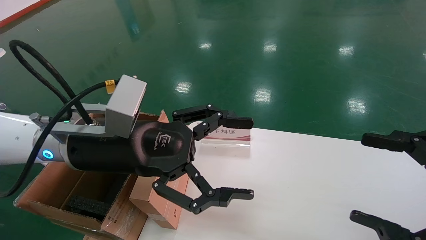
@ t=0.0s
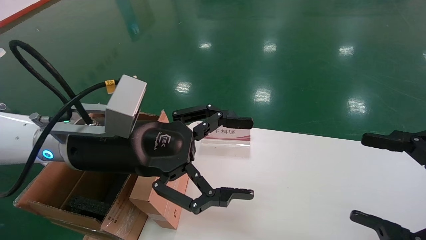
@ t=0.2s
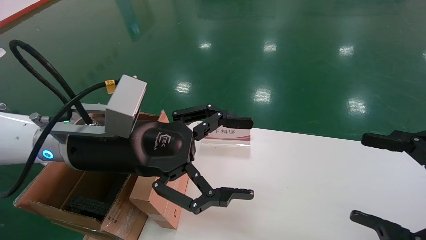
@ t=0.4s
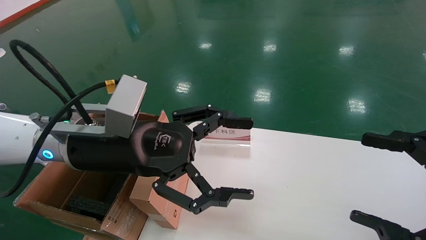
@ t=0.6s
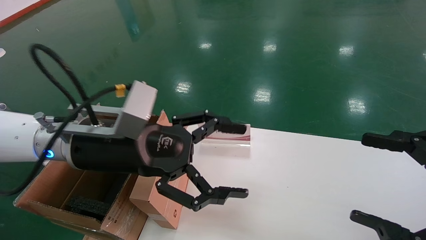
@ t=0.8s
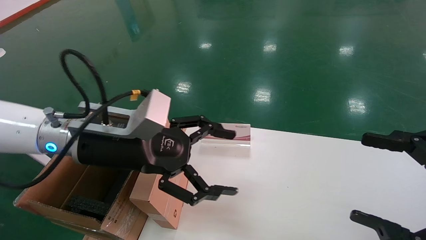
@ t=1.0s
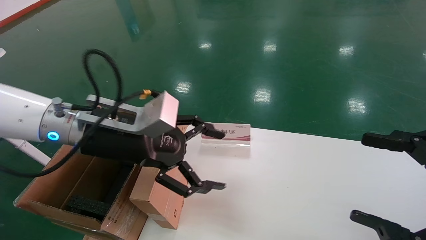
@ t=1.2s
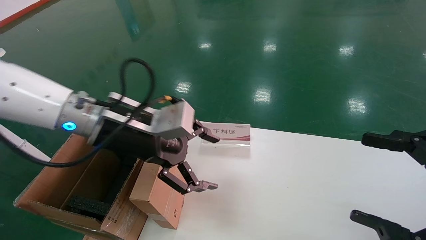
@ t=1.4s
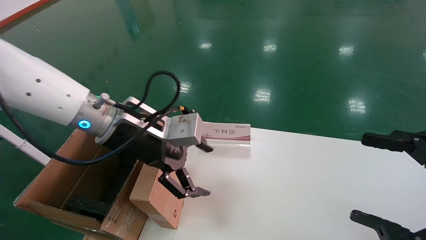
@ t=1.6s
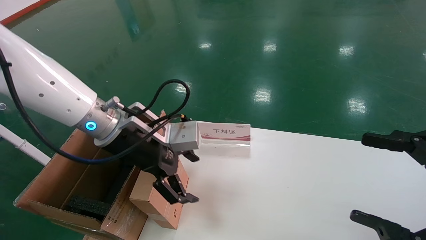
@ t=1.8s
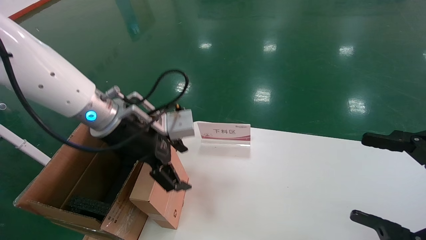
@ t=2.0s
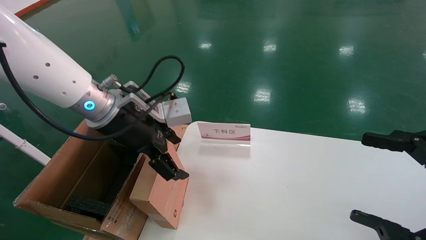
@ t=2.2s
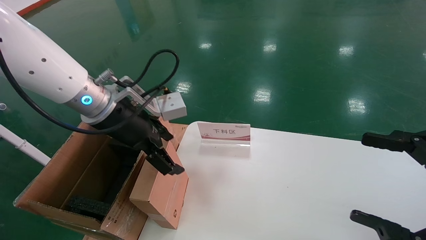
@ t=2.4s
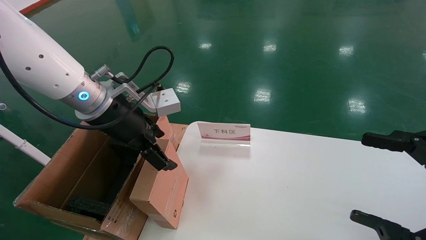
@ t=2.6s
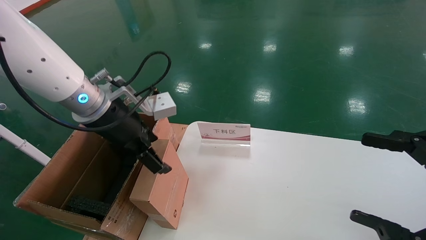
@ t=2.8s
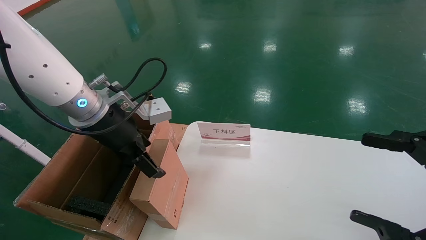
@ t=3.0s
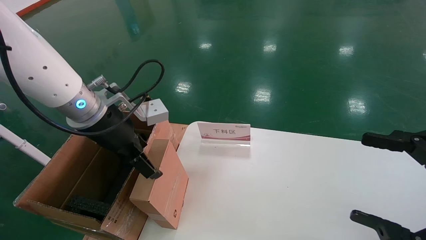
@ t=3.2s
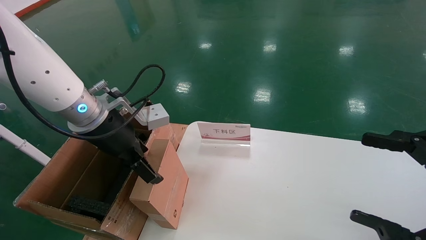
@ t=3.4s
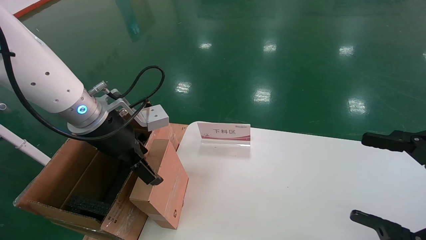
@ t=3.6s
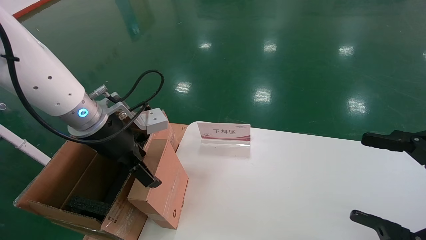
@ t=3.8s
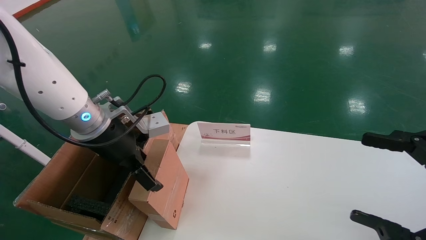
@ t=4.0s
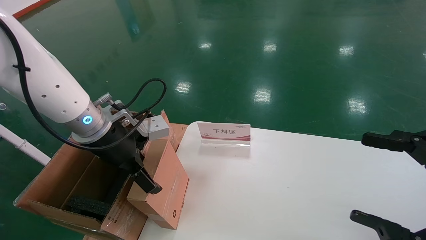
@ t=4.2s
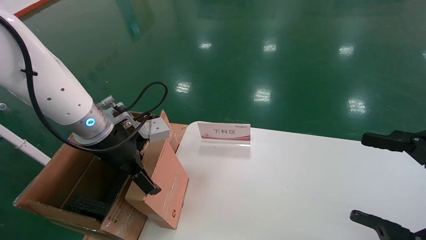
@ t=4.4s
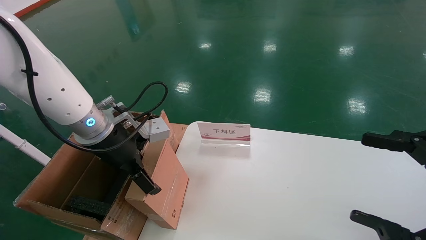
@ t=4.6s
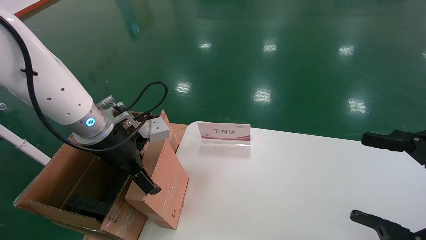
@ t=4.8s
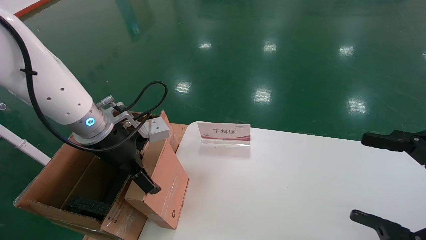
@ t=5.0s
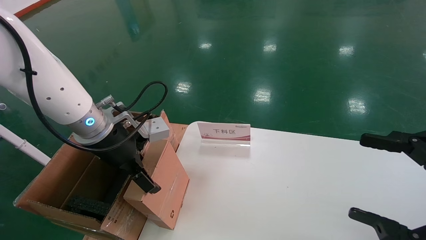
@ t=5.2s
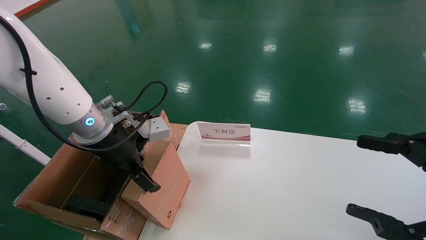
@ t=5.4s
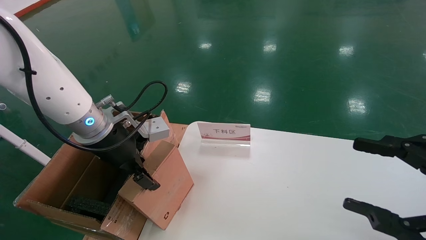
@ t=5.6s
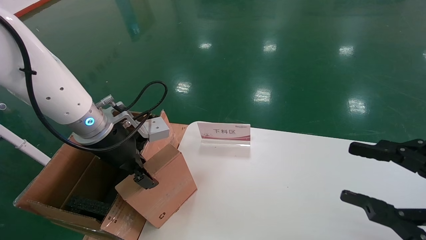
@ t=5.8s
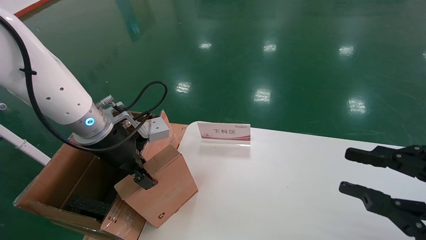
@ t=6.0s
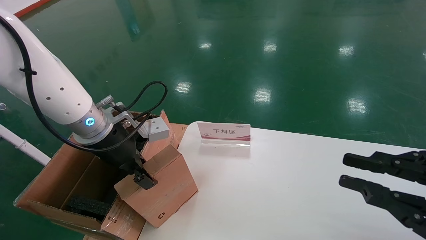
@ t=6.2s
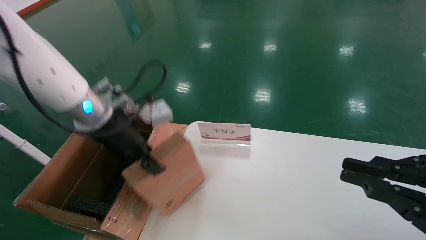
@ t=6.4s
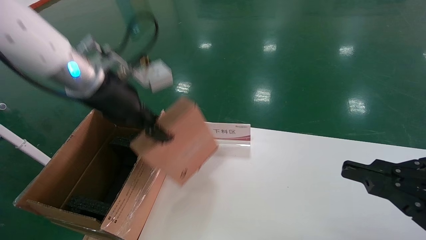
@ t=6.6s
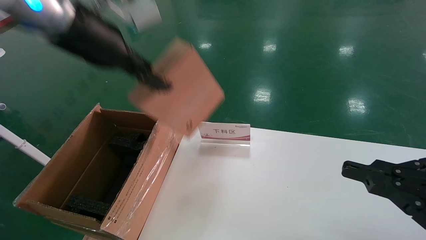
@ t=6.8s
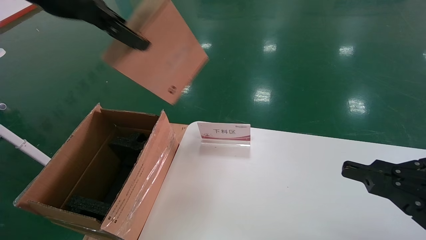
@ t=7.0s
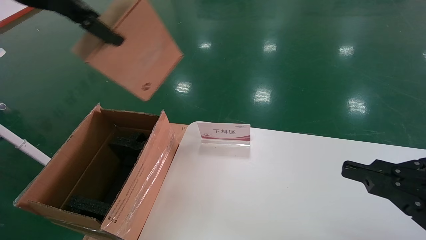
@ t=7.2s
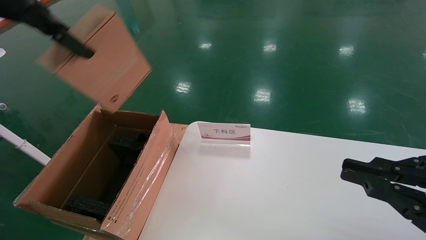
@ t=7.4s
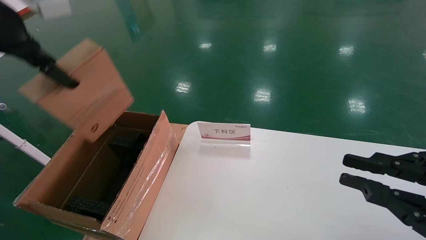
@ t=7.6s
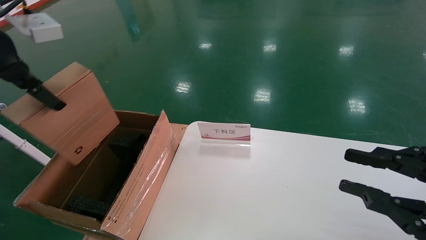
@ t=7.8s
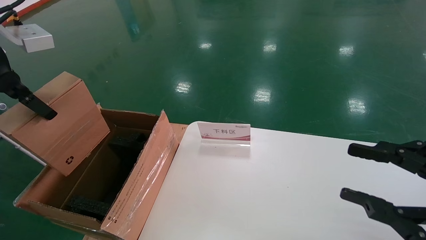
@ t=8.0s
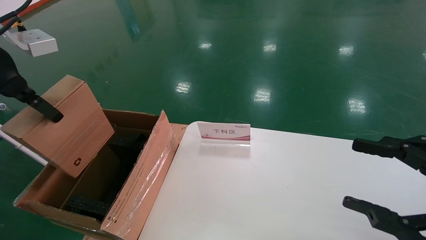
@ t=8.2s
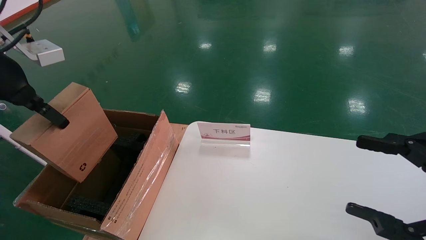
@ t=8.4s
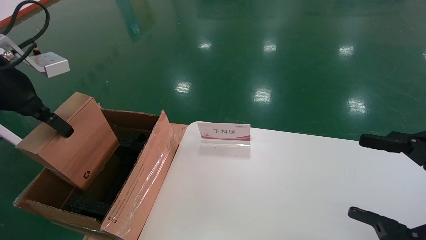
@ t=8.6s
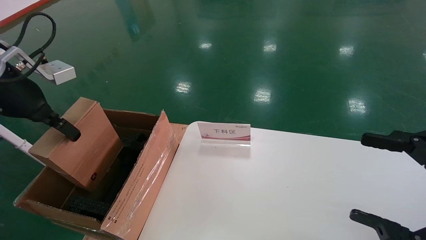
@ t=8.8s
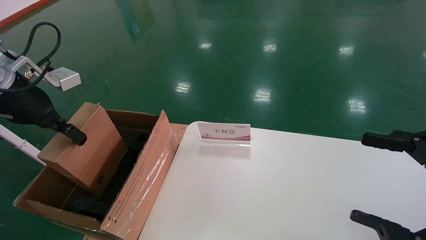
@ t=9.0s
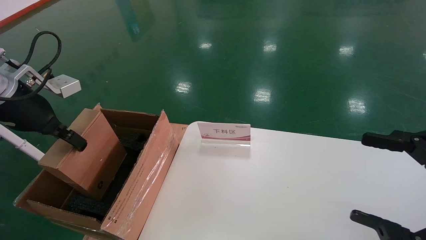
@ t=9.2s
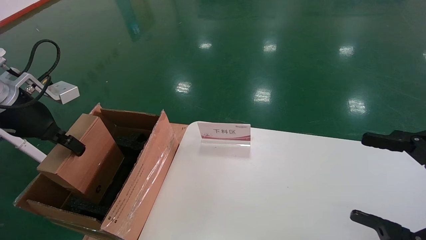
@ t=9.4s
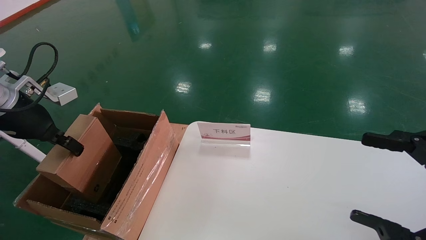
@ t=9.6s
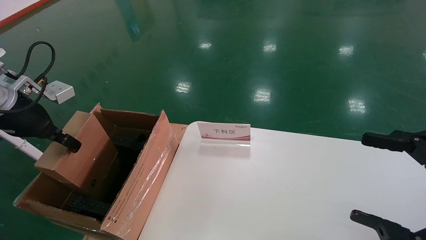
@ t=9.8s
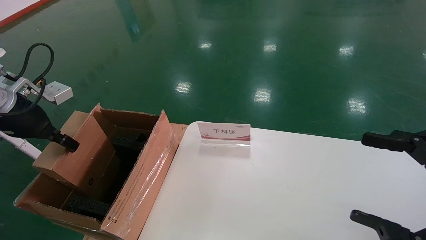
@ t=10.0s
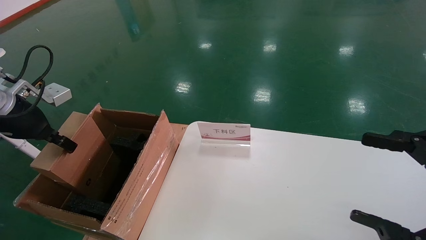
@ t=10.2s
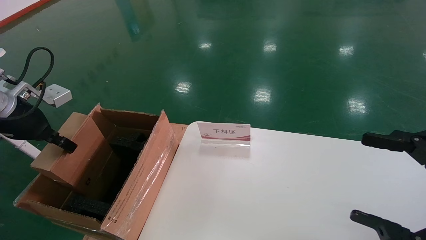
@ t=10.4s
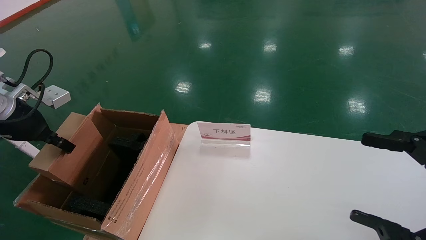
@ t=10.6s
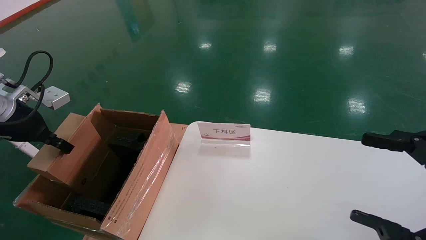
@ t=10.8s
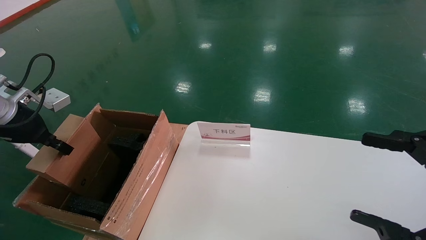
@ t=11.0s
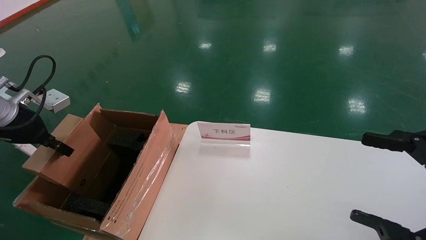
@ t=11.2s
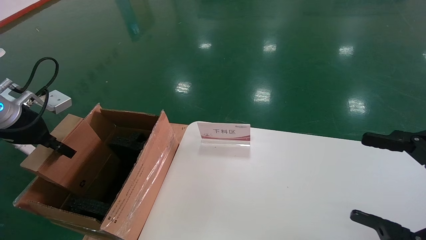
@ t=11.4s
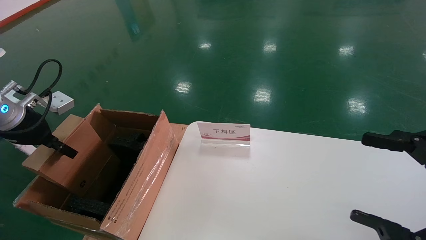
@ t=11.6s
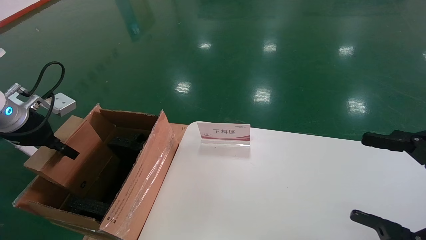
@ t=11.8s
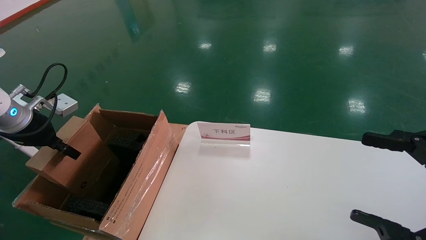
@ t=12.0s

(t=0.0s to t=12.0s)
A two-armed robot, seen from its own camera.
Task of the whole recording: pick up the small cardboard box and load it into the large cardboard box.
Step, t=1.0s - t=8.0s: Pick up the mouse and power cord box.
t=0.0s - t=1.6s: The left gripper goes some 5 cm forward.
t=3.0s - t=4.4s: There are only small adjustments of the grippers.
t=4.4s - t=6.0s: The left gripper closes. Meanwhile the right gripper closes up.
t=6.0s - t=7.6s: The right gripper closes up. Meanwhile the left gripper travels upward and to the left by some 25 cm.
t=7.6s - t=9.0s: The right gripper opens up. Meanwhile the left gripper is displaced downward by about 10 cm.
t=9.0s - t=10.4s: The left gripper moves about 5 cm.
t=10.4s - t=12.0s: The grippers stay close to where they were, moving slightly.

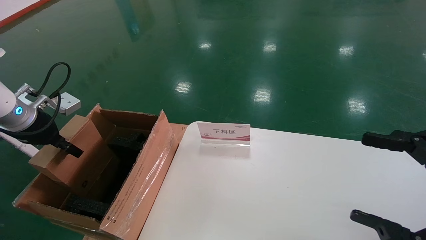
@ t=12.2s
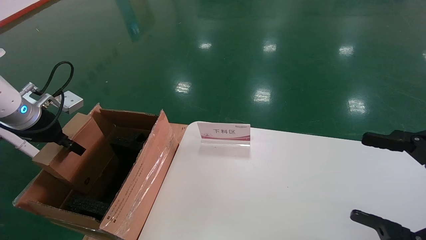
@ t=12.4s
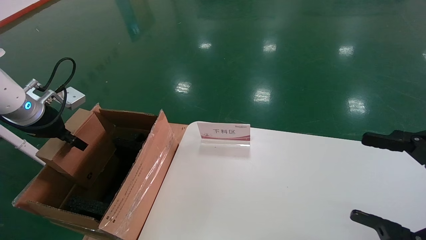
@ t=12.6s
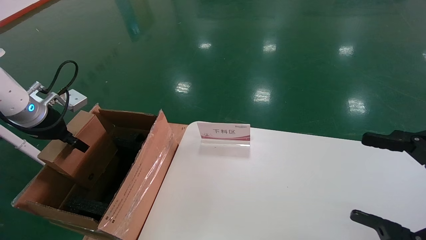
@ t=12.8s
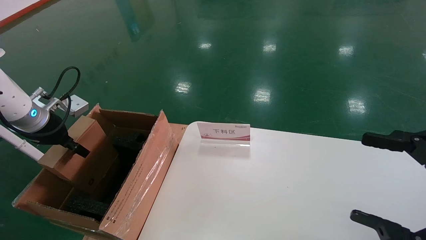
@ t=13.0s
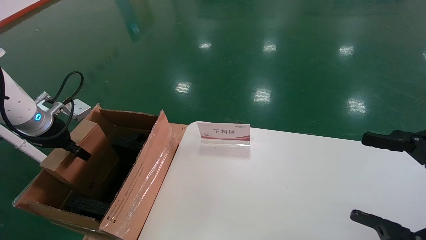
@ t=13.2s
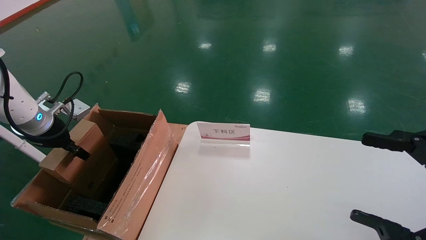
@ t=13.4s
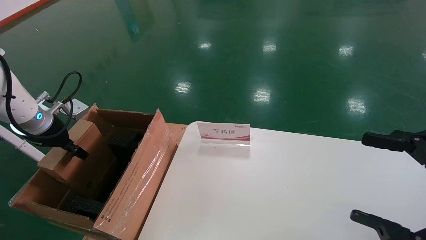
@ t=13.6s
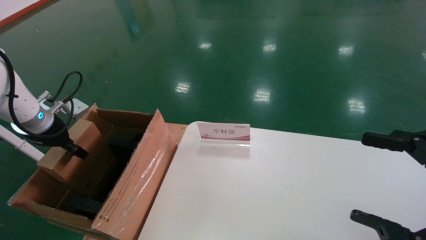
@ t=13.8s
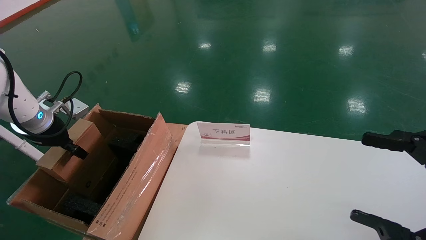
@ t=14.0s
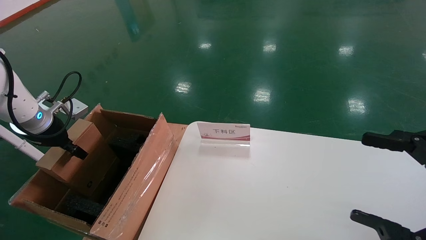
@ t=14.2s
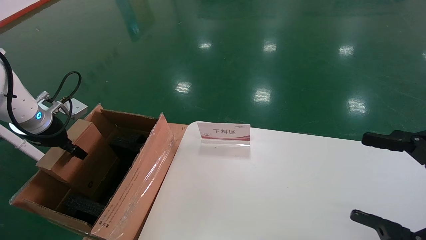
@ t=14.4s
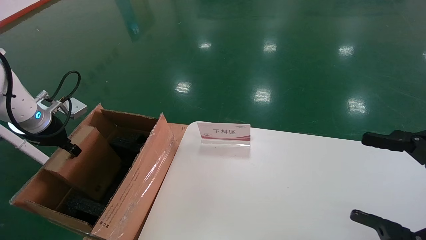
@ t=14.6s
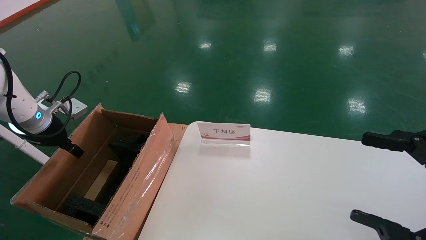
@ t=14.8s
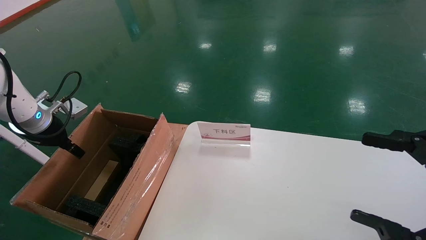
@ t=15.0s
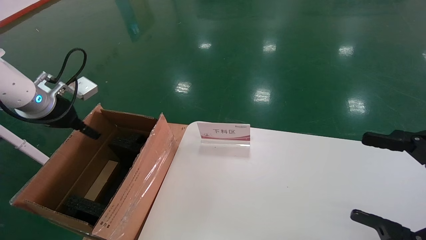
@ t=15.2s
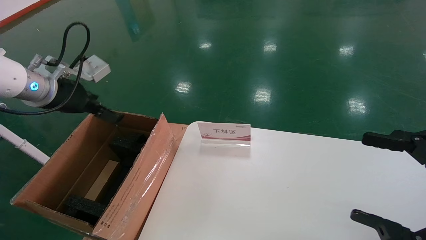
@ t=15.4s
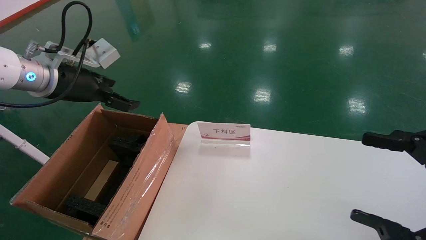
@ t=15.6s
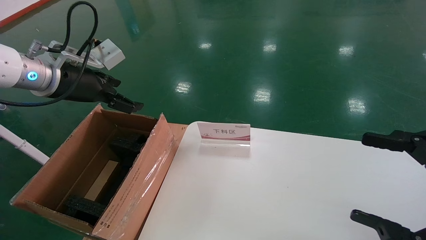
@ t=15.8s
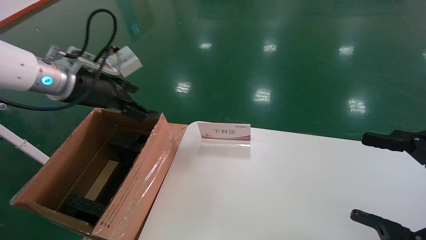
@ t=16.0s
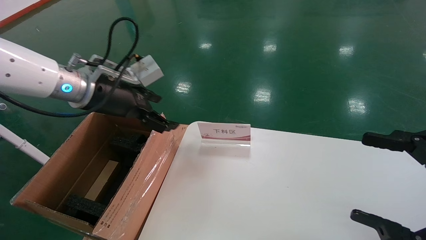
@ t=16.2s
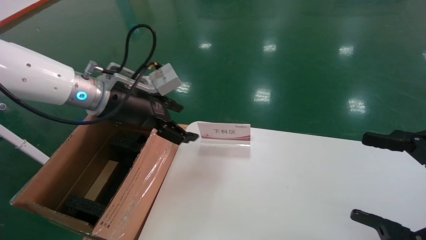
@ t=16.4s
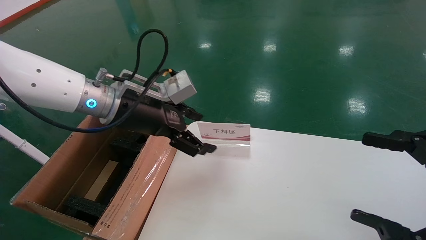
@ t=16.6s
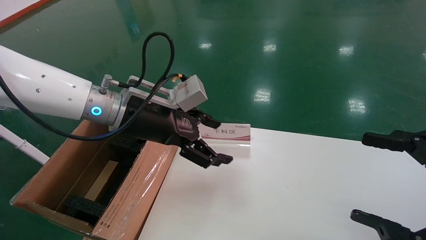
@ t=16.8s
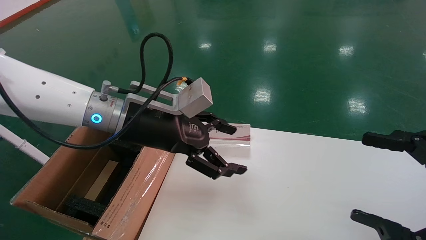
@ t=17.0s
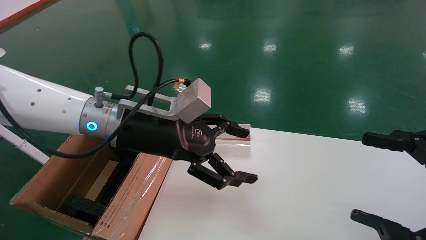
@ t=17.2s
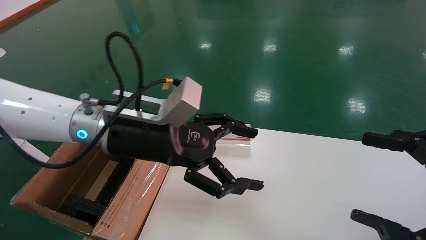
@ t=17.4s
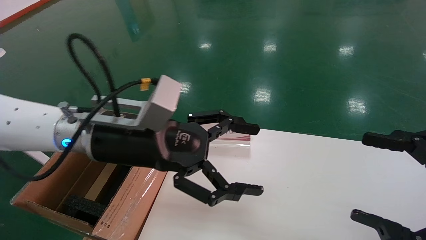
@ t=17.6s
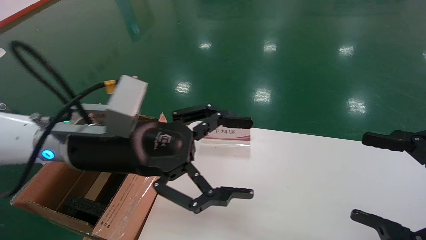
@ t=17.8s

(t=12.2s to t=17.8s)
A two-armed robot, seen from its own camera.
Task of the whole recording: pick up the small cardboard box and load it into the large cardboard box.
Step, t=12.2s - t=16.8s: Place the mouse and power cord box into the case.
t=12.2s - t=13.6s: The grippers make only small movements.
t=13.6s - t=15.0s: The left gripper opens up.
t=15.0s - t=16.4s: The left gripper shifts some 20 cm to the right, and opens up.
t=16.4s - t=17.8s: The left gripper goes roughly 10 cm backward.
